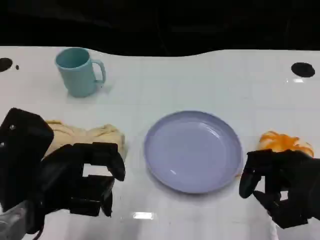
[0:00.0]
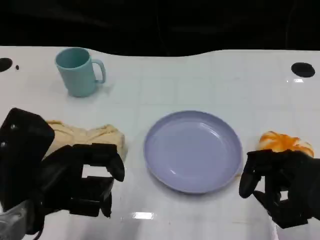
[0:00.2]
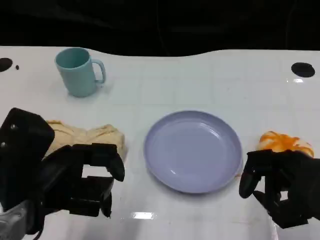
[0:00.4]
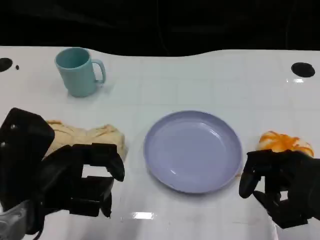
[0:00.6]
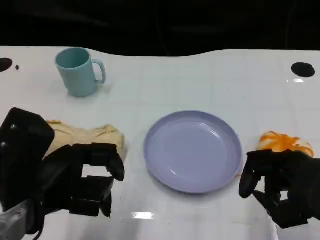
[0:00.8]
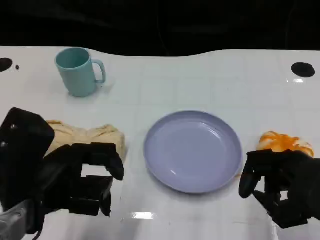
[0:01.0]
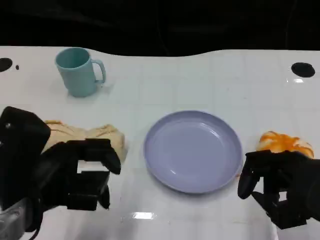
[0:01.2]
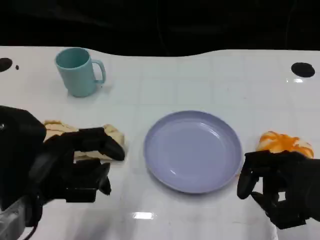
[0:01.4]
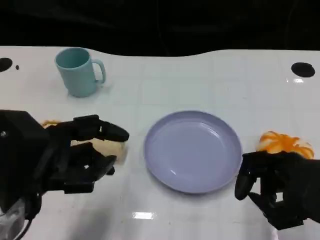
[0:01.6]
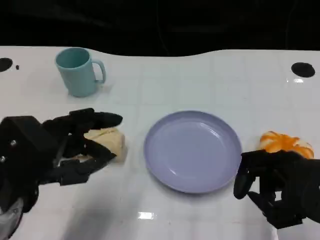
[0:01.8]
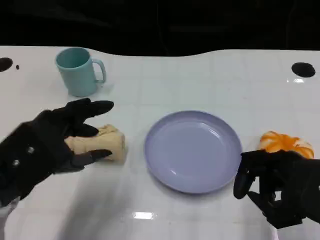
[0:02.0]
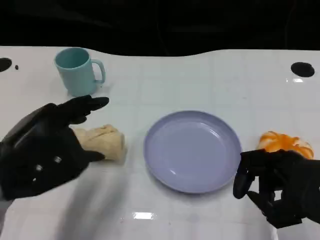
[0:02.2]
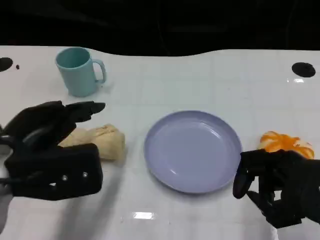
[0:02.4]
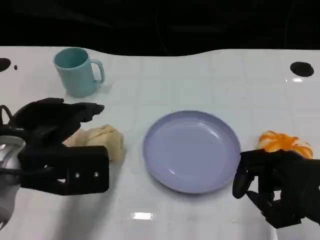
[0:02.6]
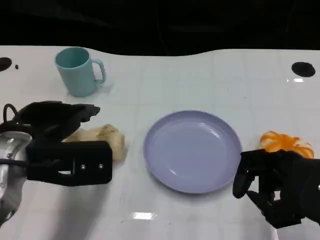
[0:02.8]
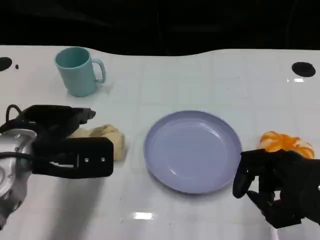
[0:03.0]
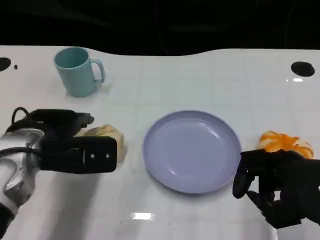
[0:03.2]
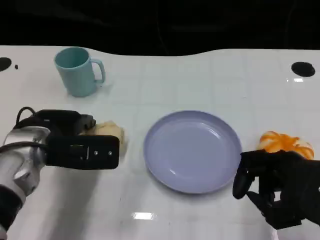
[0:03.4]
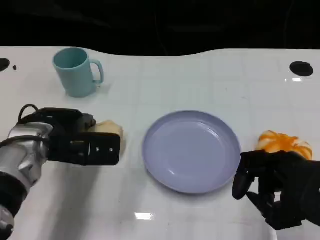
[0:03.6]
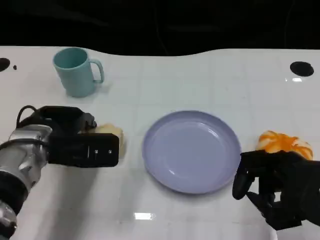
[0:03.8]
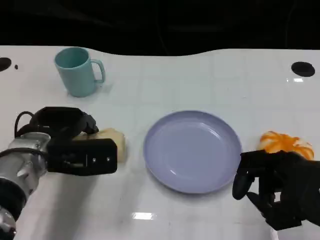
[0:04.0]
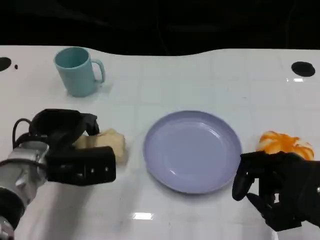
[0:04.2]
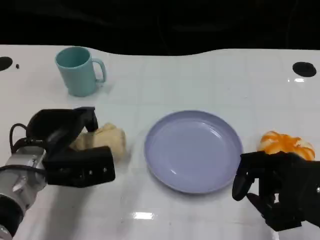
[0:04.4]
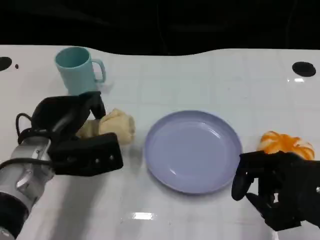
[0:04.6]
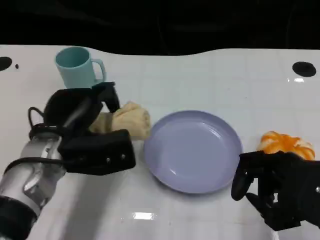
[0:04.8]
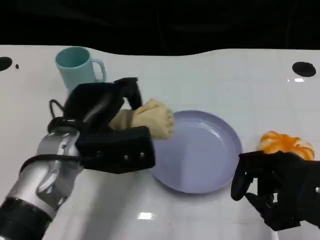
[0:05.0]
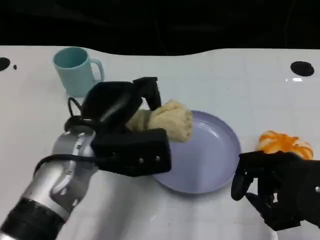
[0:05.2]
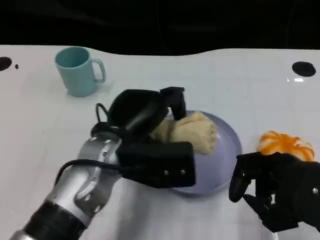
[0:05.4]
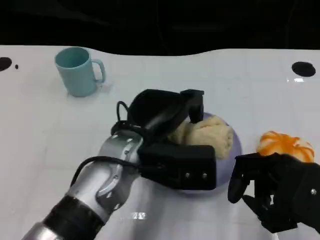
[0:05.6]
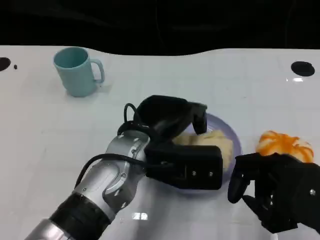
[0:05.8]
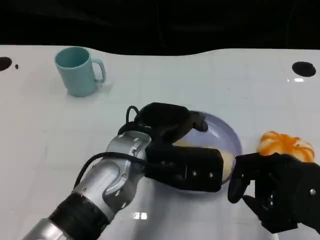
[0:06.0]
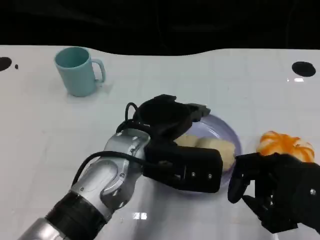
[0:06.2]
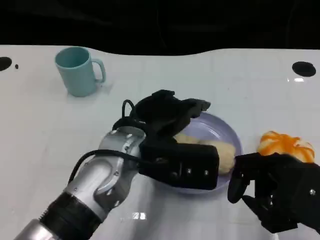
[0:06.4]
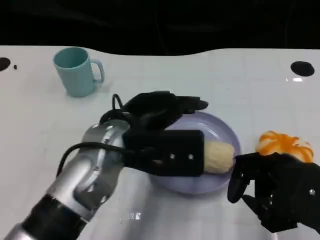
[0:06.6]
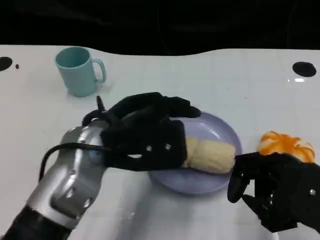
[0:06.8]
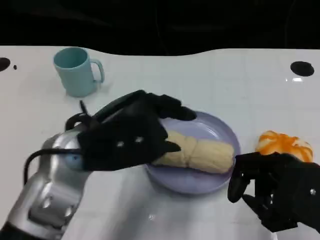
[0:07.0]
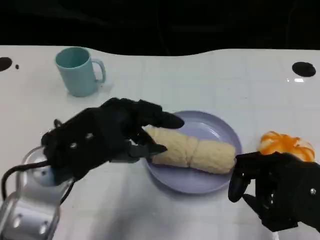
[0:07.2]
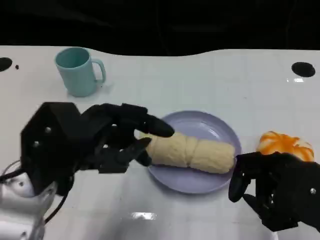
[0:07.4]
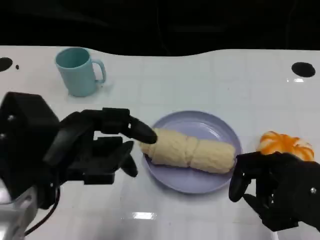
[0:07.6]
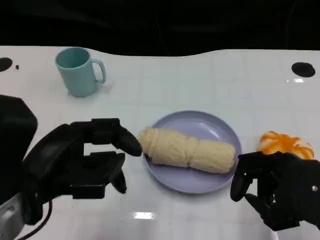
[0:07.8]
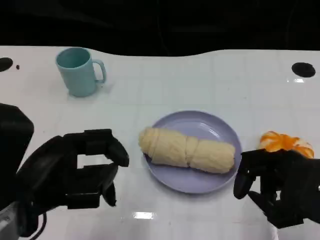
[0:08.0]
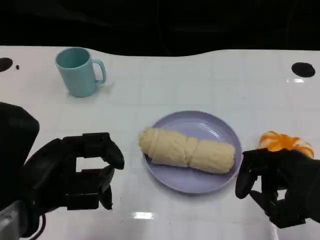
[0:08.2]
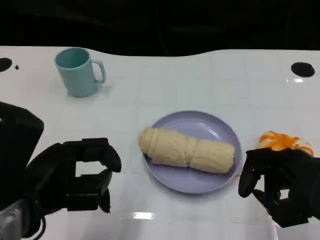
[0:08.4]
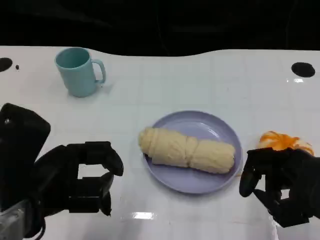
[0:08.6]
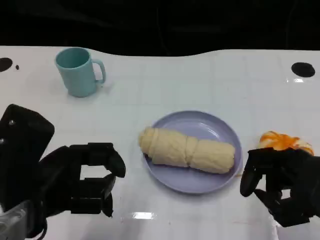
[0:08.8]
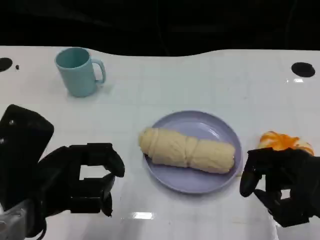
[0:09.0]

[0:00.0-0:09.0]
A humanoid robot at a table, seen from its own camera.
Task of the whole recording: Grasp the towel on the left side of the plate with the left hand and place it into the plate.
0:00.0 to 0:01.6: The hands move only a little.
0:01.6 to 0:03.0: The left hand heads forward, covering some 10 cm.
0:03.0 to 0:04.4: The left hand goes approximately 5 cm downward.
0:04.4 to 0:06.0: The left hand travels to the right and upward by about 15 cm.
0:06.0 to 0:07.6: The left hand moves to the left and backward, roughly 15 cm.
0:07.6 to 0:09.0: The hands make only small movements.
